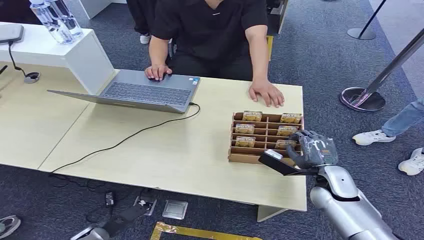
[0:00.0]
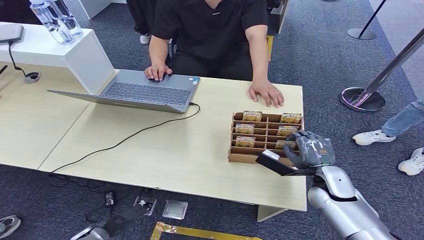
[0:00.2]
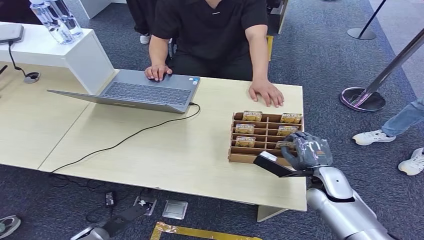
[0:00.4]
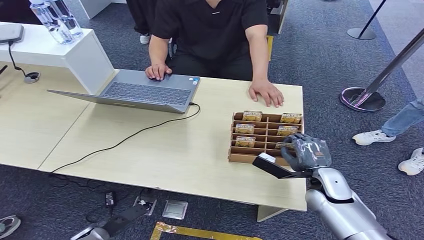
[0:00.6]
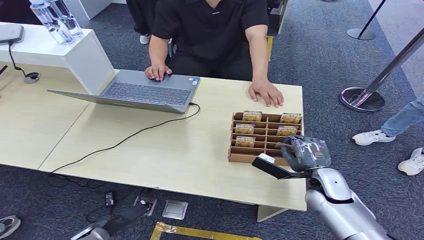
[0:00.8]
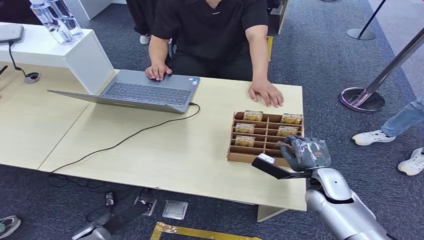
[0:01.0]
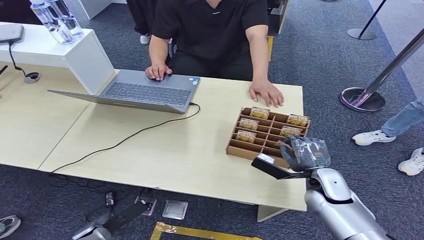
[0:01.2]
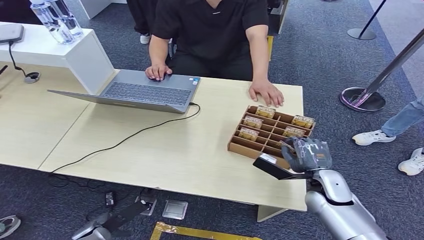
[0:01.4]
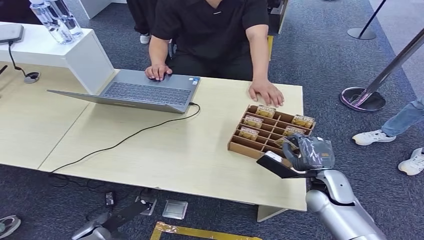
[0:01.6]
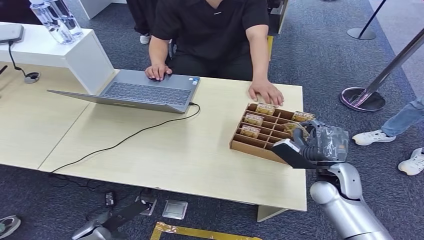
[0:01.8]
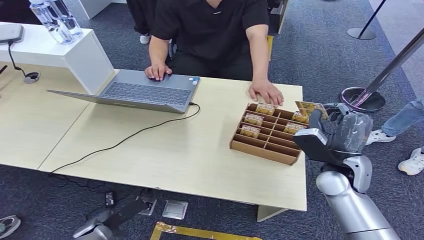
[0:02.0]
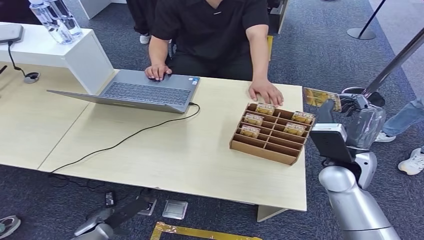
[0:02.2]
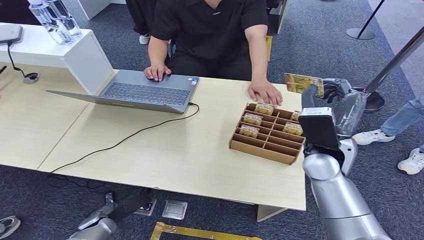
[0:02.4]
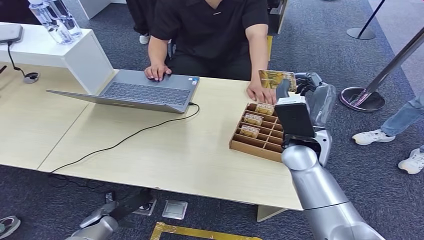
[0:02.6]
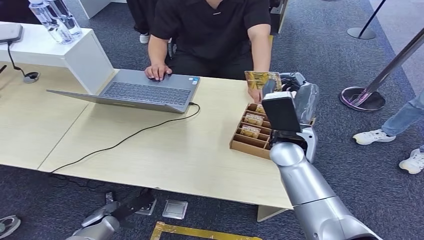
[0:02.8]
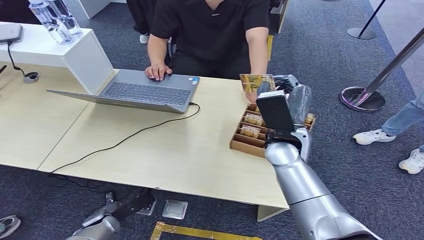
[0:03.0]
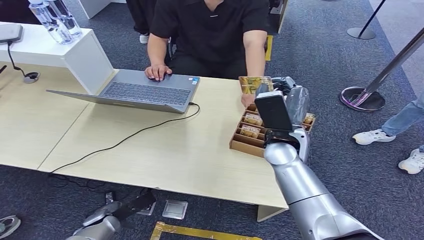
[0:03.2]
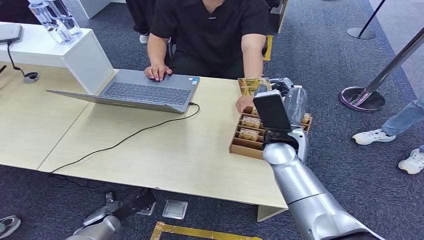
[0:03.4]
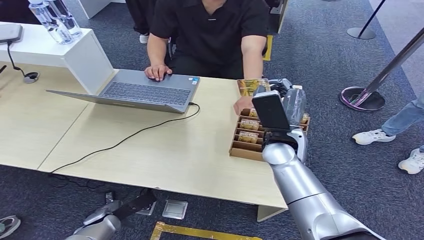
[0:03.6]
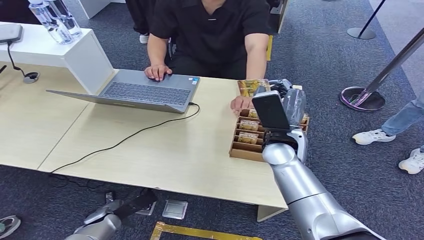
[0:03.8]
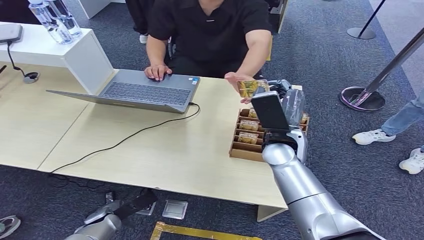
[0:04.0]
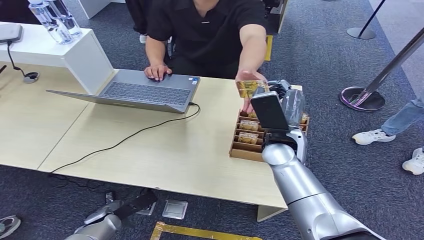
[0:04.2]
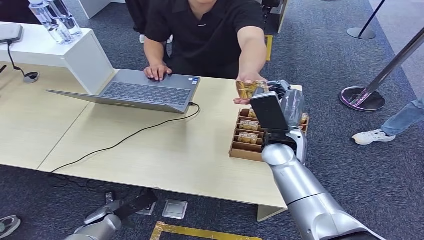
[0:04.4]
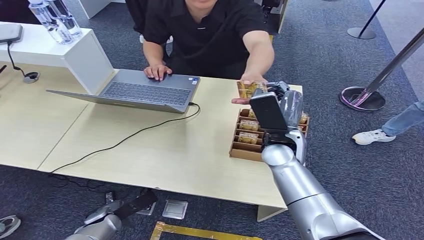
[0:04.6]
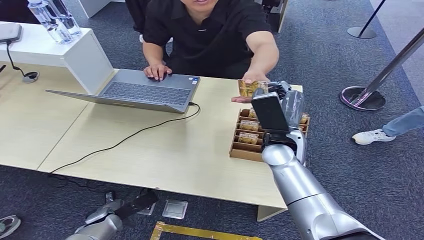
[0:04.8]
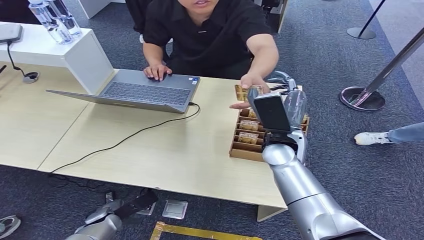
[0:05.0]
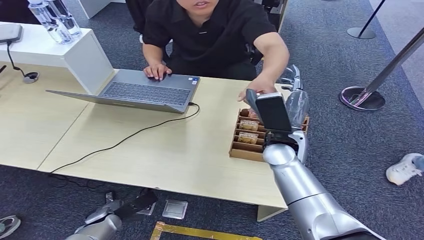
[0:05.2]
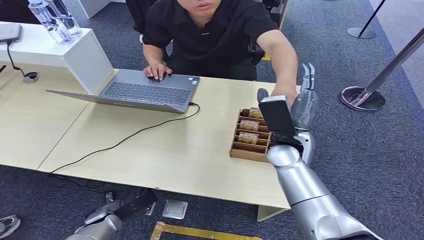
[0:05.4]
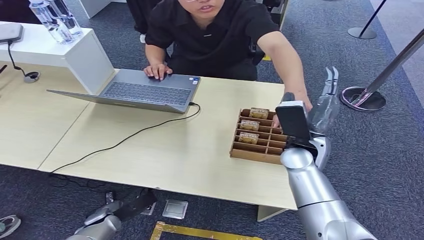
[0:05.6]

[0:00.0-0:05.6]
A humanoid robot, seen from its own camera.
Step, 0:00.0 to 0:02.6: Pick up the key card from the card box.
Step, 0:02.8 to 0:05.6: Hand the key card to the target.
0:01.4 to 0:02.8: The right hand is displaced to the left, upward and forward by about 20 cm.
0:02.8 to 0:05.6: There are only small adjustments of the hands.
